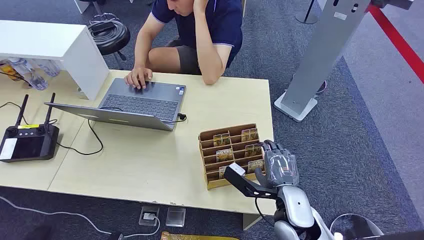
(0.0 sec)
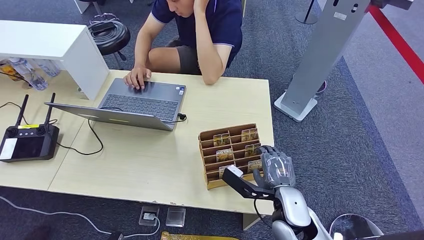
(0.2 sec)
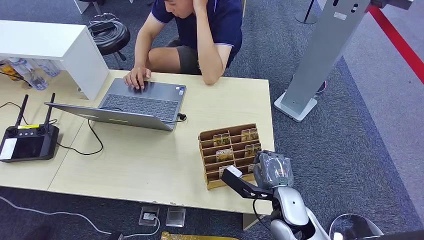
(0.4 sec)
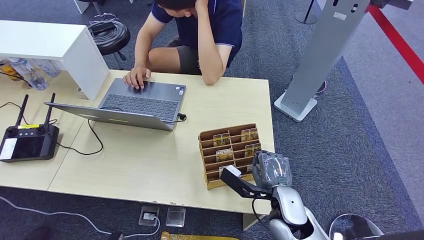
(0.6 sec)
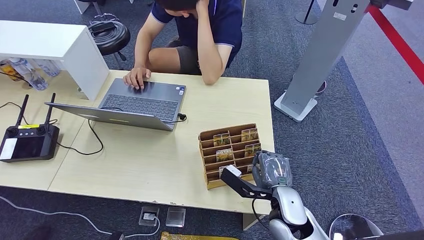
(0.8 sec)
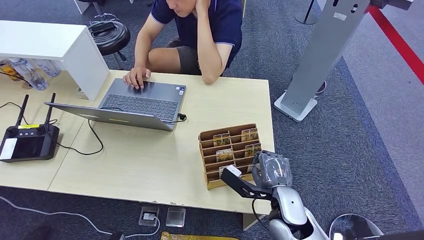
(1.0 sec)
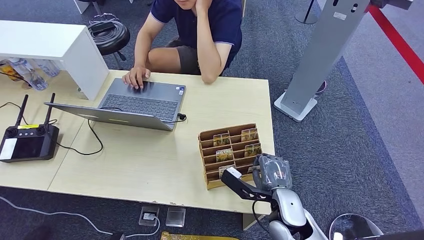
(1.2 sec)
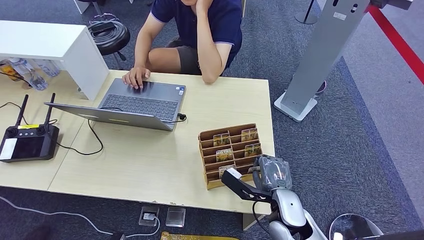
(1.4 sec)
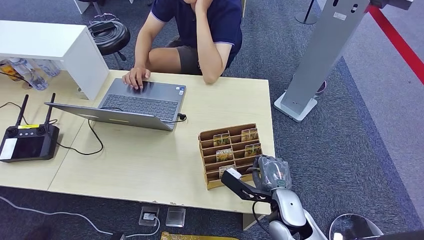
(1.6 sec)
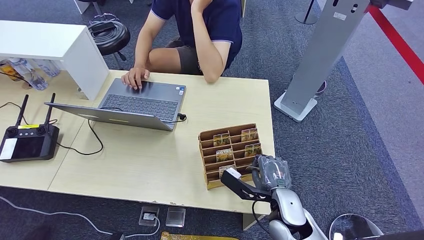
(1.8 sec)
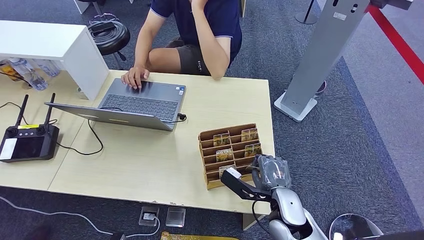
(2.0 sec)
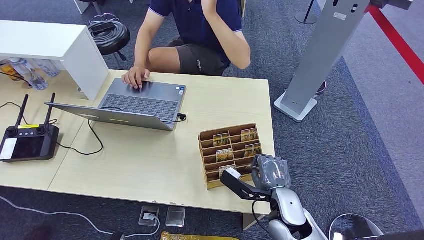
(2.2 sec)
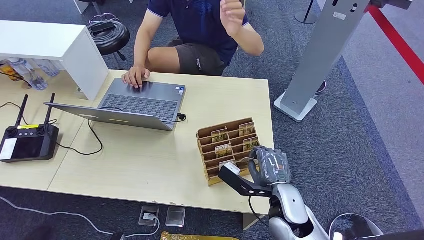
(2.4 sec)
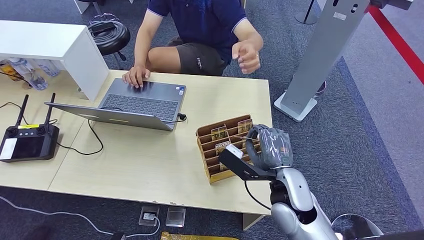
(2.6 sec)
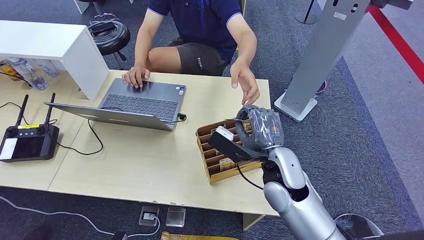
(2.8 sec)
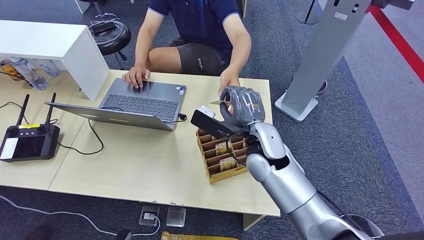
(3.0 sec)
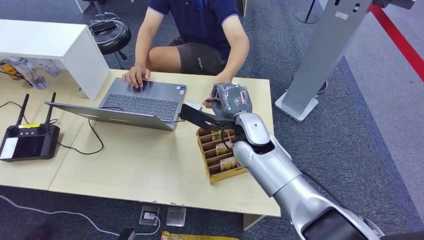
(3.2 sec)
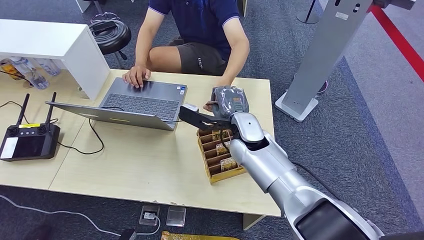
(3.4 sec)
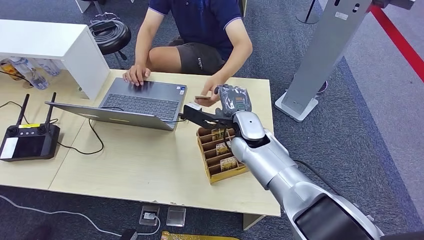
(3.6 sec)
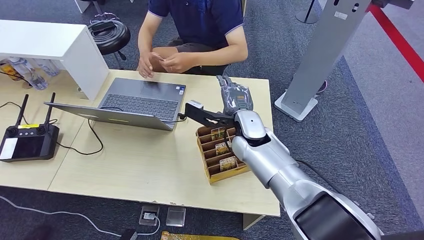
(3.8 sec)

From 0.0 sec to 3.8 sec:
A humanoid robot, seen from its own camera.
Step, from 0.0 sec to 2.4 sec: Pick up the key card from the card box.
Step, from 2.8 sec to 3.8 sec: Hand the key card to the target.
From 1.2 sec to 2.6 sec: The right hand goes some 5 cm upward.
From 2.6 sec to 3.8 sec: The right hand moves forward and to the left, roughly 15 cm.
